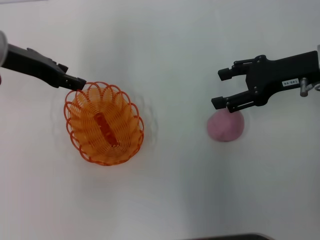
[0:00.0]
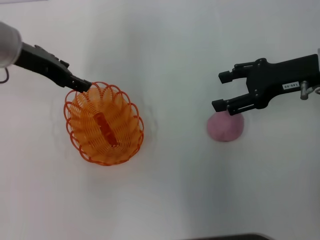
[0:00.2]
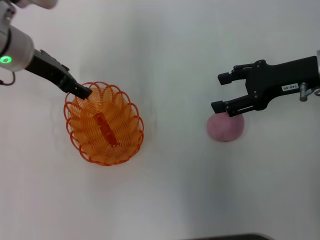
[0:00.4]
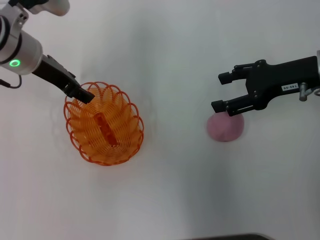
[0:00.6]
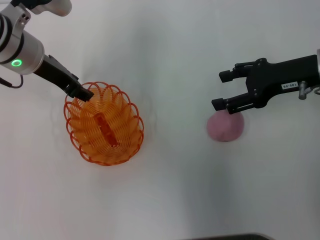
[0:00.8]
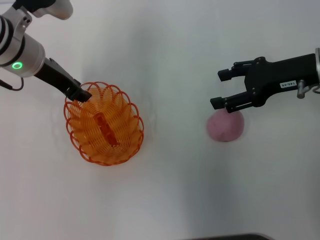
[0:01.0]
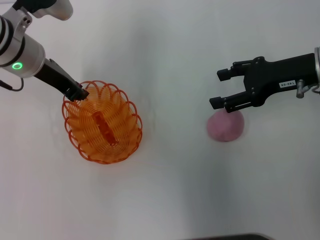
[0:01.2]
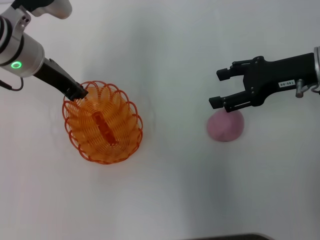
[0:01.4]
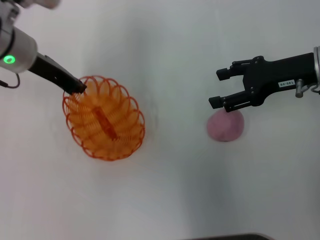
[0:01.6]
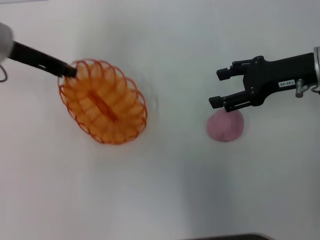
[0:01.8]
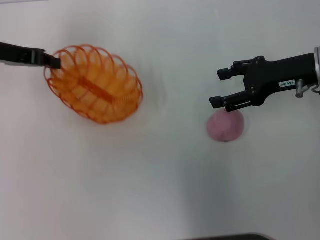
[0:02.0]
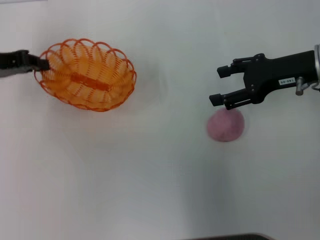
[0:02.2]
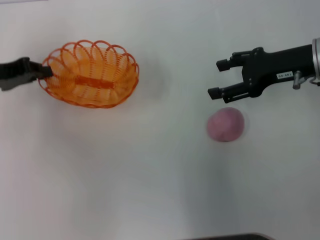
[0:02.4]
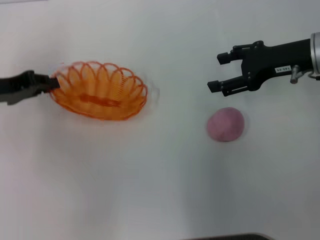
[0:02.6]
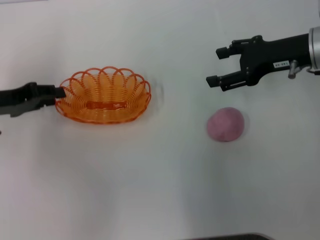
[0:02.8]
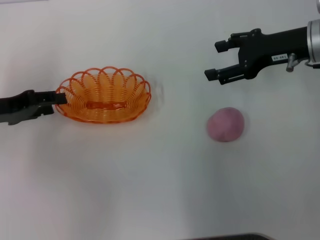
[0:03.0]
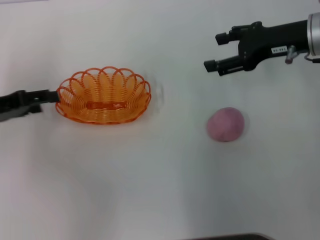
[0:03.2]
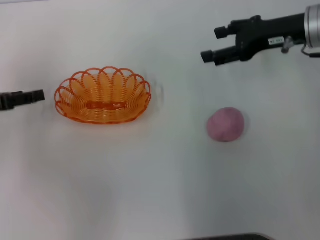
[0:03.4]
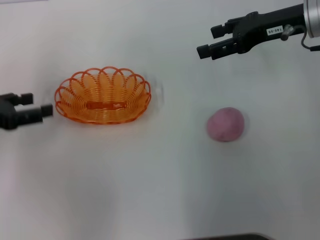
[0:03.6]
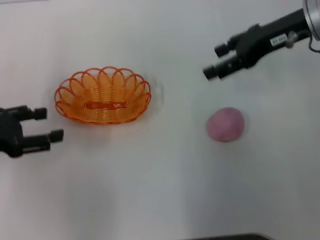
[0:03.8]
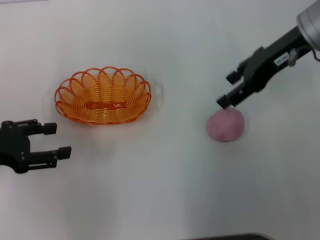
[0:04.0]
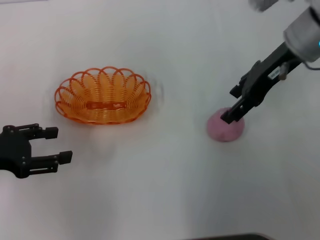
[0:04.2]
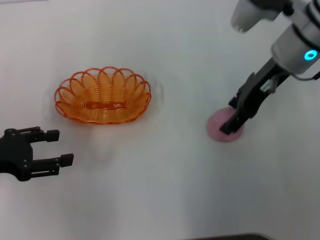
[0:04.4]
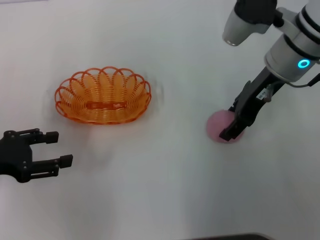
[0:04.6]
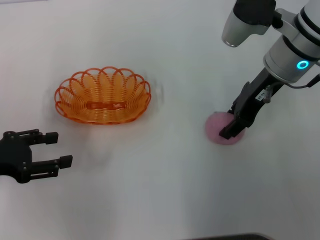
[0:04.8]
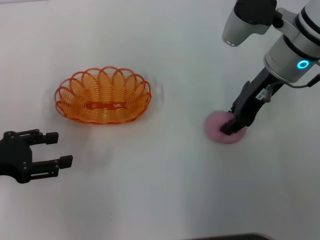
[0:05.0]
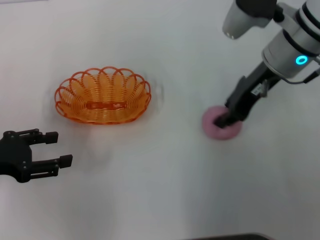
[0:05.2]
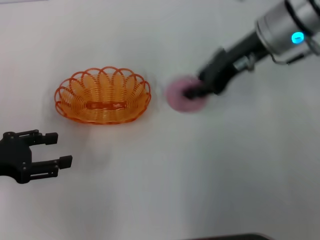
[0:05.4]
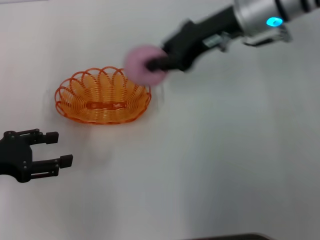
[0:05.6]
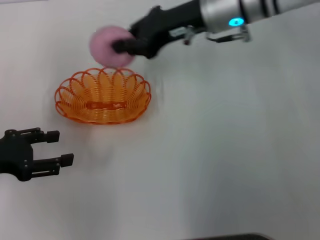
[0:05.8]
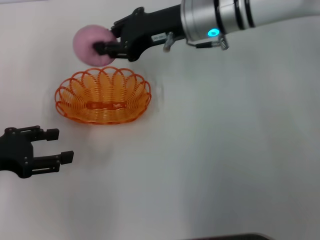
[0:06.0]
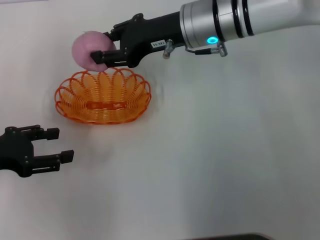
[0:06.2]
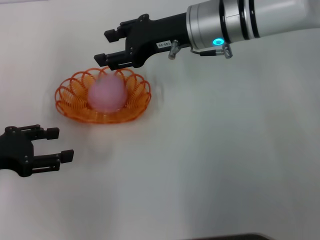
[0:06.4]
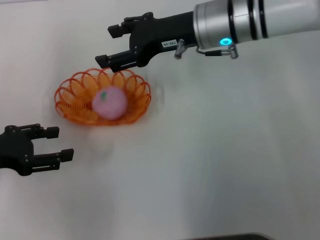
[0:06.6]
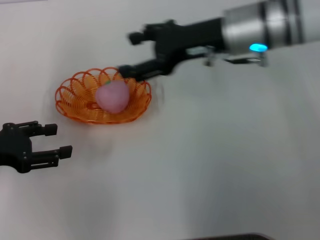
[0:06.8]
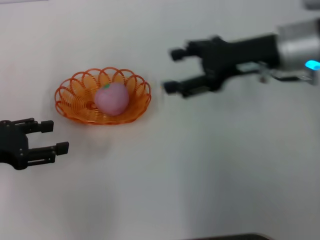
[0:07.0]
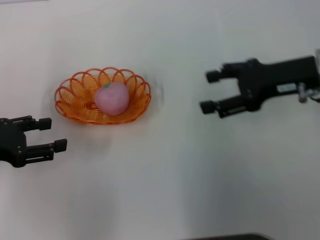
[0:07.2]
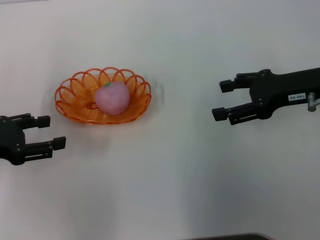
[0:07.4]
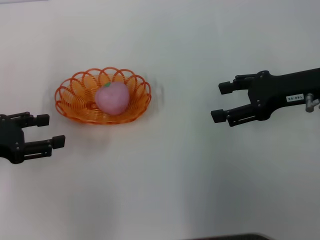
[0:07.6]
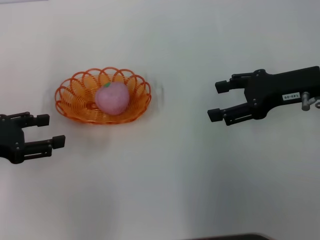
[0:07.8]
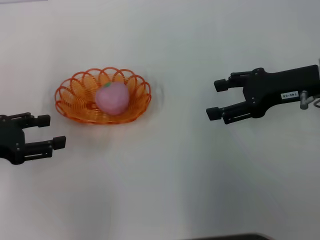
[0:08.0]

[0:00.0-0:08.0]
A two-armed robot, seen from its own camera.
Step, 0:00.0 to 0:03.0: Place the basket in the center of view with the left gripper.
Step, 0:03.4 to 0:05.2: Pick up the peach with the right gripper.
Step, 0:05.4 to 0:06.8: Place the peach into the basket with the right gripper.
0:00.0 to 0:01.6: The left gripper opens, then closes once more.
0:01.6 to 0:03.2: The left gripper shifts roughly 15 cm to the left, backward and downward, and opens.
0:03.2 to 0:04.8: The left gripper travels backward by about 5 cm; the right gripper is displaced to the left by approximately 5 cm.
0:04.8 to 0:06.4: The right gripper is displaced to the left by roughly 10 cm, and closes, then reopens.
0:06.4 to 0:08.0: The right gripper goes some 20 cm to the right and backward, and opens its fingers.

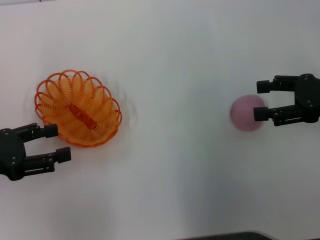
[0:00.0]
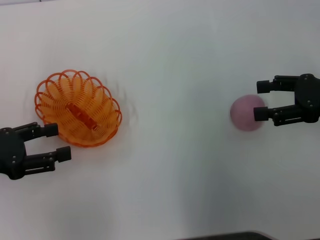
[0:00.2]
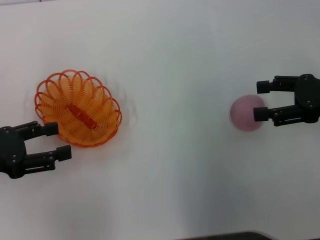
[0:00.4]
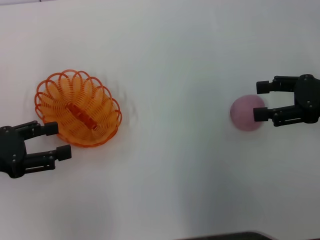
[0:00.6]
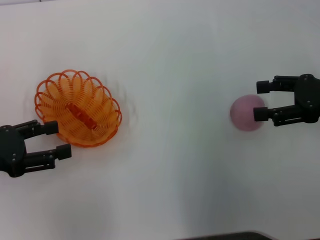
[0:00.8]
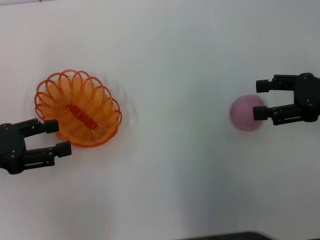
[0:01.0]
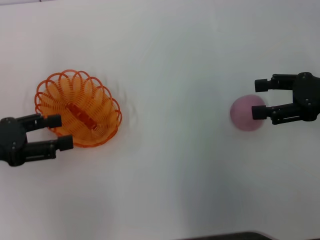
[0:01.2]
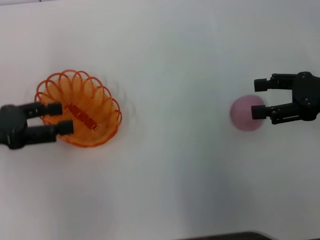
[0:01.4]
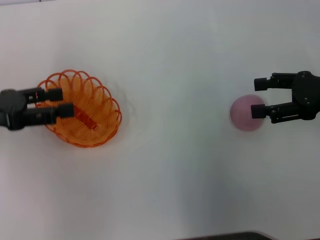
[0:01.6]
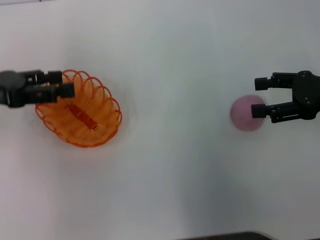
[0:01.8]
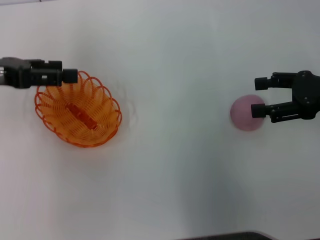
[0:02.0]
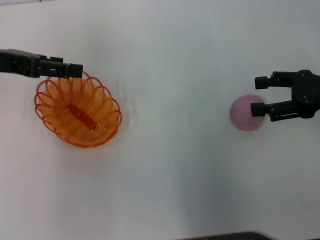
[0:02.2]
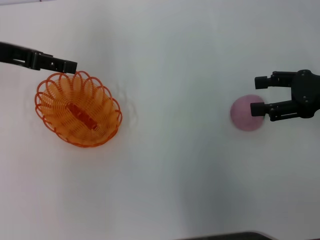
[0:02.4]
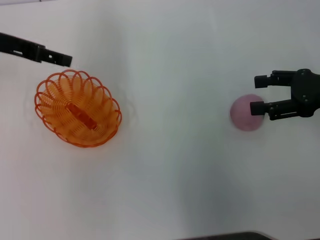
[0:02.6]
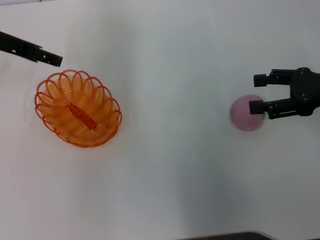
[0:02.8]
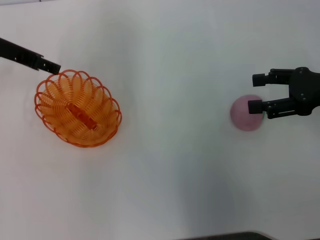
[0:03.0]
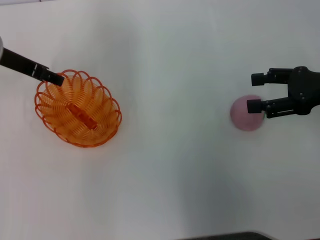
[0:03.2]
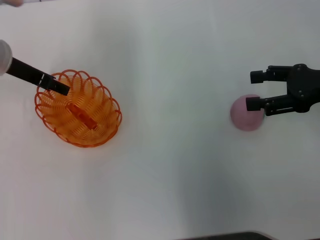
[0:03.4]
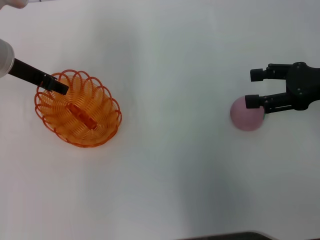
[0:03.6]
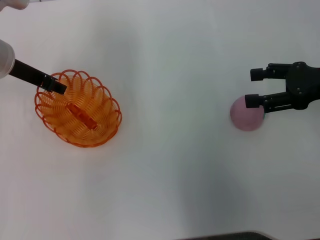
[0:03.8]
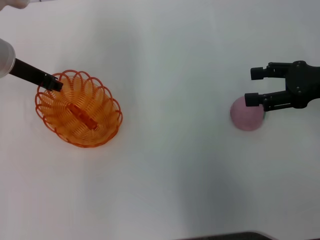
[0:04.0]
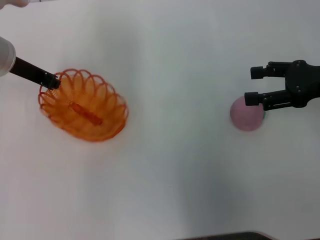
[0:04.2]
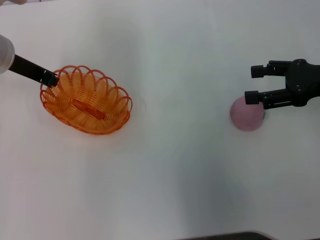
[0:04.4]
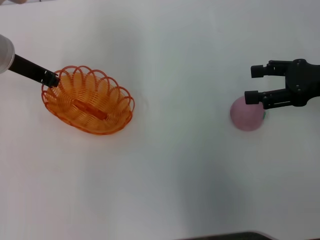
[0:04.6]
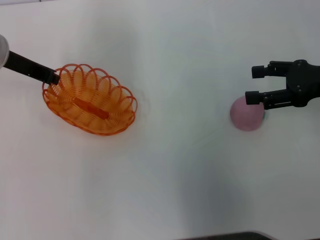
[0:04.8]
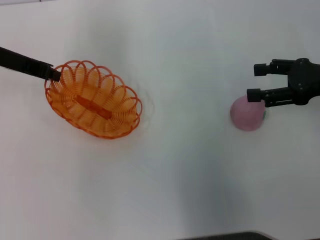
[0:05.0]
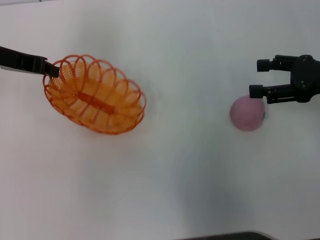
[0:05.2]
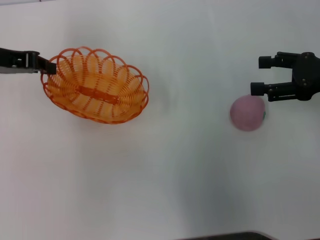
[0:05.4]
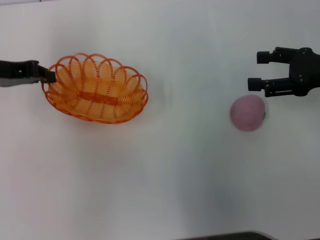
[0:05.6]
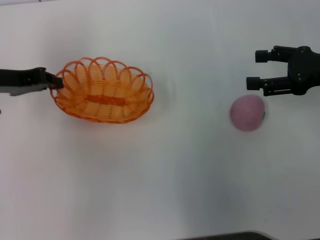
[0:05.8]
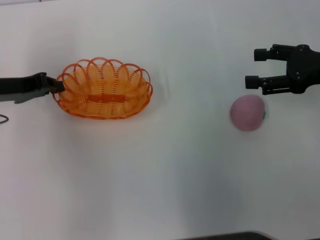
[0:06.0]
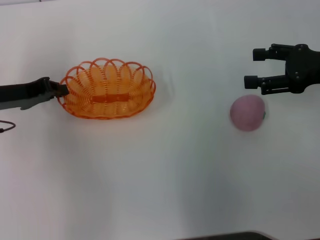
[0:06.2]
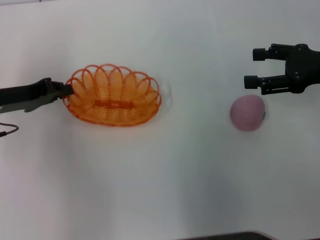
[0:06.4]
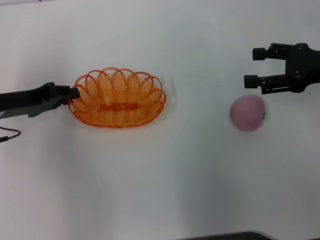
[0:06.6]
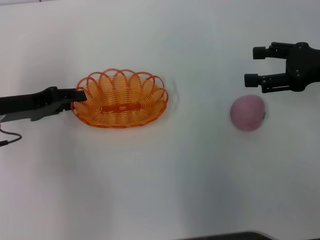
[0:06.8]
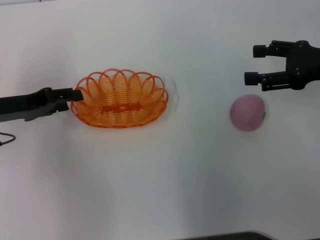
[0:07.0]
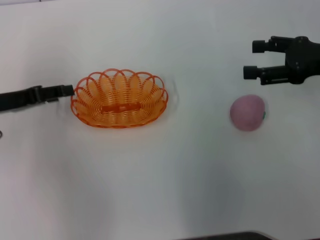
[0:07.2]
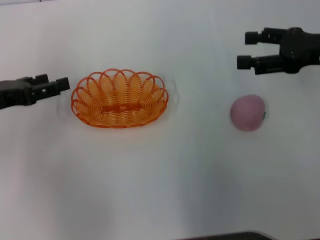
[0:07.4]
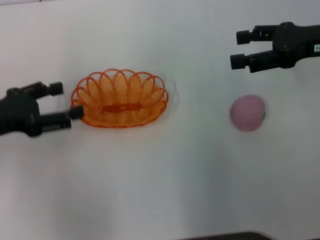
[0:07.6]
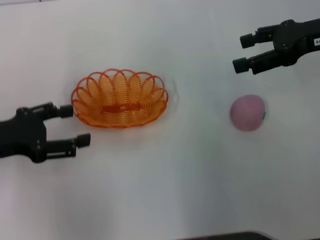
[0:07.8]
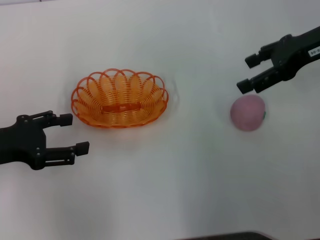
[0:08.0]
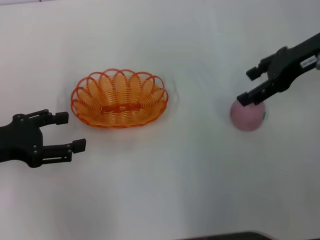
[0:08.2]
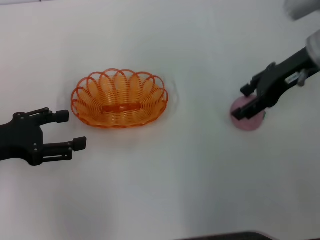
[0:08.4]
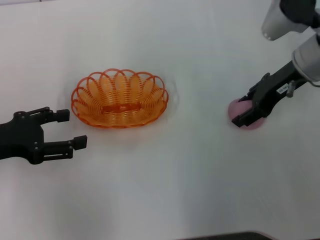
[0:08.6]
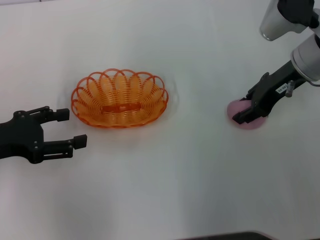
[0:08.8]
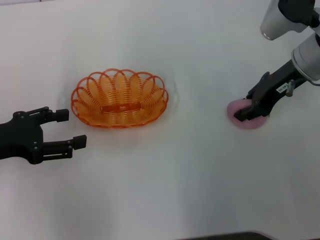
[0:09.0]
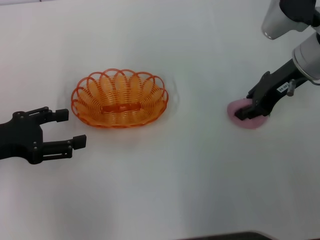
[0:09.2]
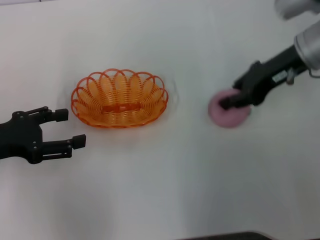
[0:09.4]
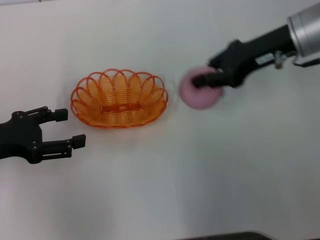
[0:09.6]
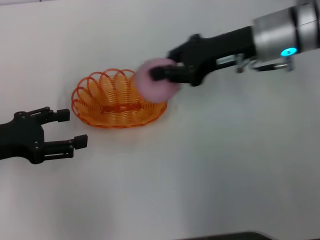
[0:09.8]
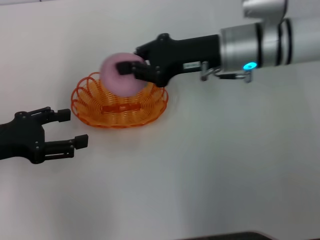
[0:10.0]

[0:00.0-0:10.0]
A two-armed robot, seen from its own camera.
Step, 0:00.0 to 0:05.0: Pick up the basket with the left gripper.
Step, 0:05.2 to 0:07.2: Place the basket in the center of view with the left gripper.
Step, 0:07.4 to 0:09.4: Pick up the peach with the right gripper.
0:00.0 to 0:01.4: There are only small adjustments of the grippers.
0:01.4 to 0:02.8: The left gripper goes about 15 cm forward, upward and to the right.
0:02.8 to 0:04.2: The left gripper moves about 5 cm, and closes.
0:04.2 to 0:05.8: The left gripper goes roughly 5 cm to the left, and closes.
0:05.8 to 0:07.2: The left gripper opens.
0:07.2 to 0:08.6: The right gripper shifts some 10 cm to the left and forward. Meanwhile the left gripper heads backward, covering about 5 cm.
0:08.6 to 0:10.0: The right gripper travels to the left by some 10 cm, and closes.

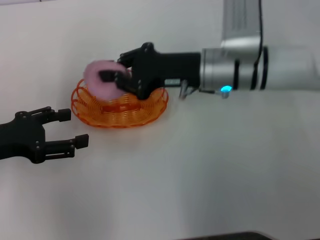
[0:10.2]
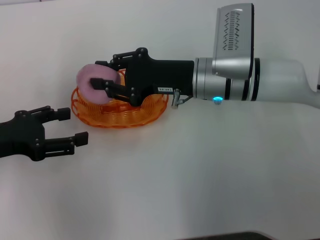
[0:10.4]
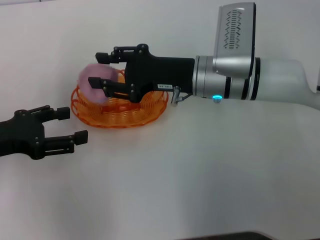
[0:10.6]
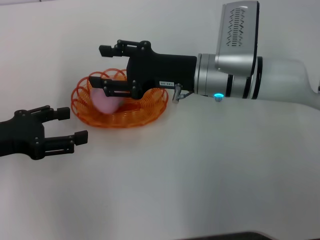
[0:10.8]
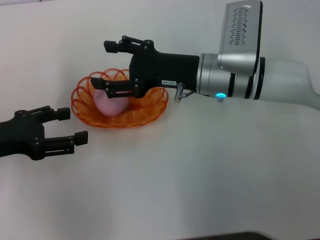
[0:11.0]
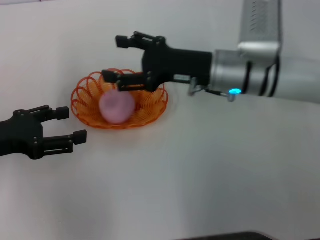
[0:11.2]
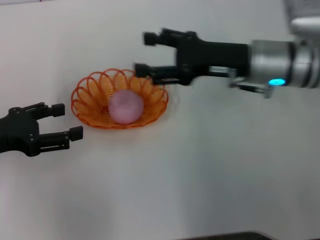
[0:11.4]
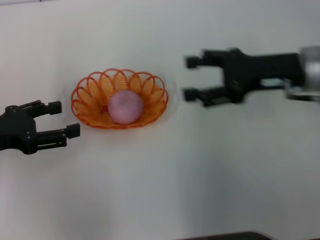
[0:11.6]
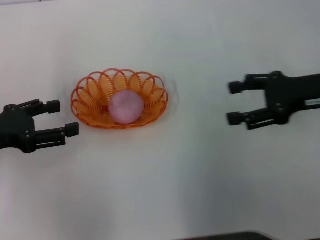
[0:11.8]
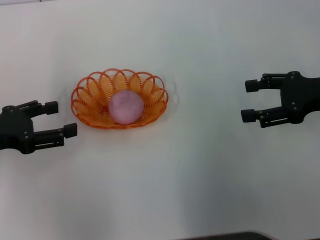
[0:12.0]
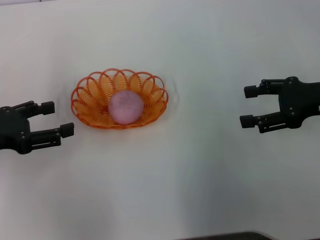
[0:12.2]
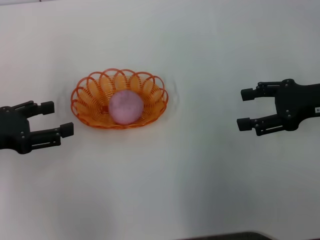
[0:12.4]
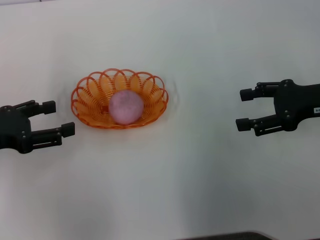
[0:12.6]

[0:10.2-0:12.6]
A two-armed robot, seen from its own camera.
0:10.2 to 0:11.4: The right gripper is displaced to the right by about 5 cm, and opens its fingers.
0:11.4 to 0:12.6: The right gripper shifts about 15 cm to the right and backward.
